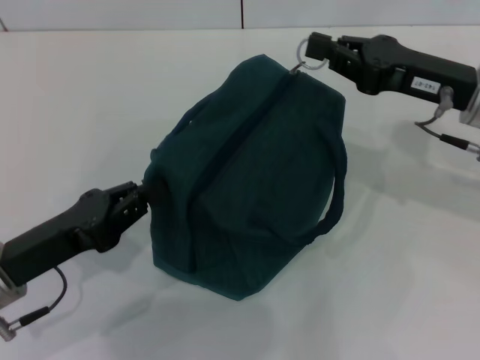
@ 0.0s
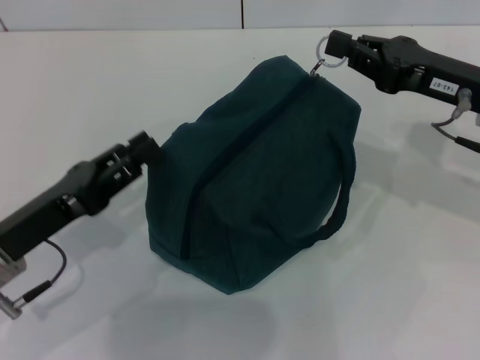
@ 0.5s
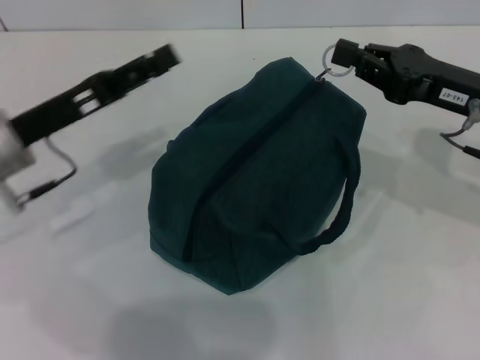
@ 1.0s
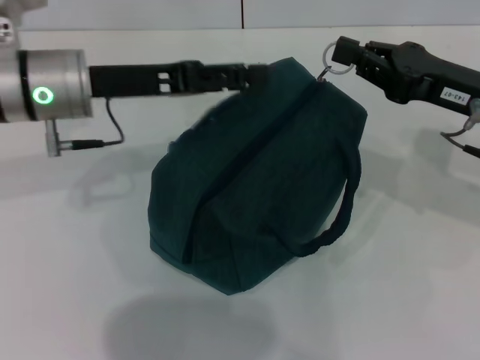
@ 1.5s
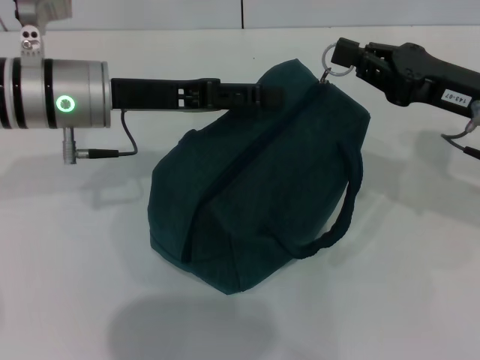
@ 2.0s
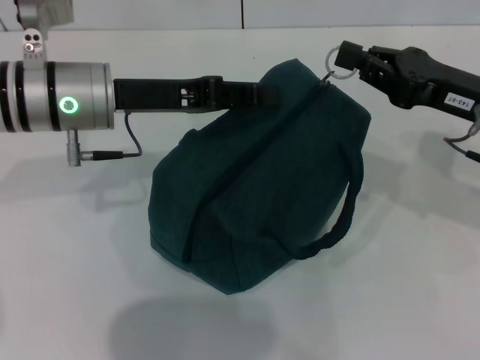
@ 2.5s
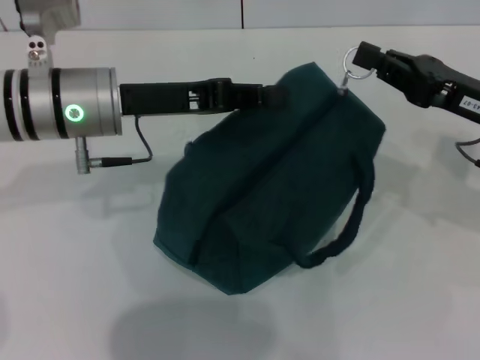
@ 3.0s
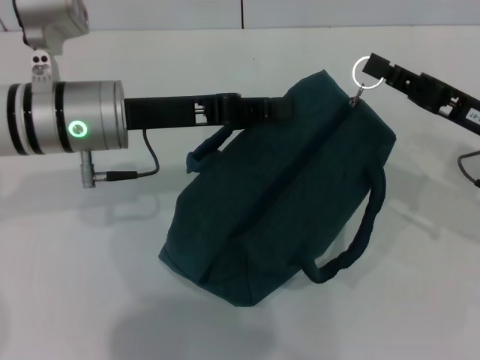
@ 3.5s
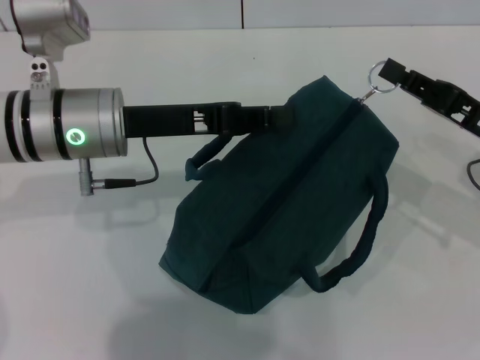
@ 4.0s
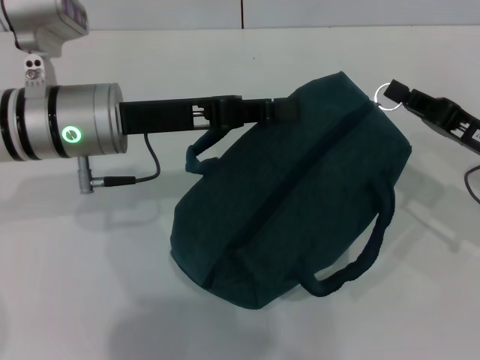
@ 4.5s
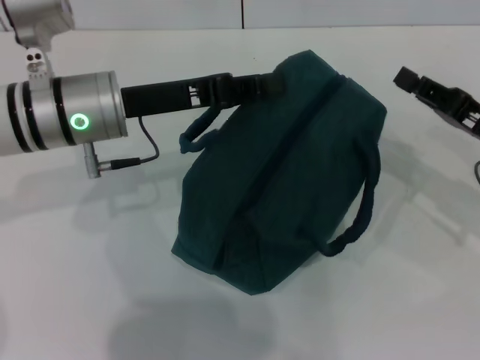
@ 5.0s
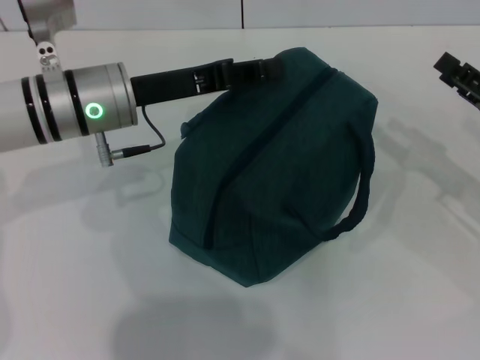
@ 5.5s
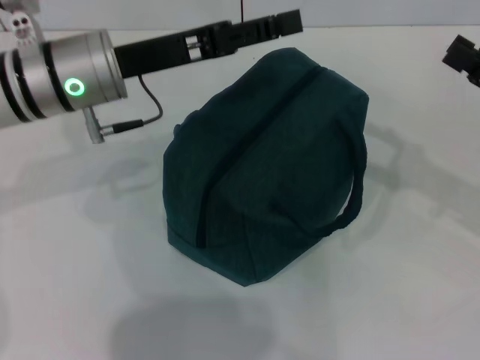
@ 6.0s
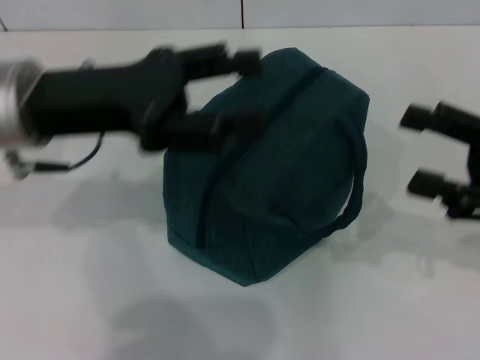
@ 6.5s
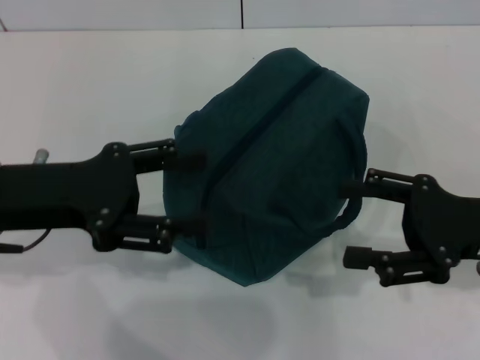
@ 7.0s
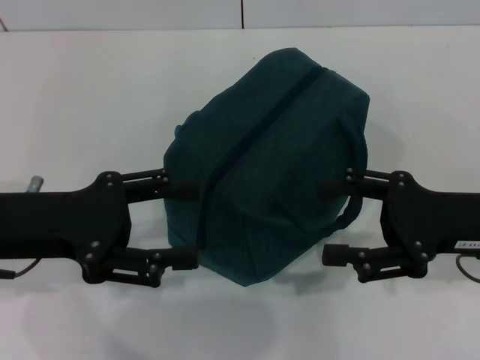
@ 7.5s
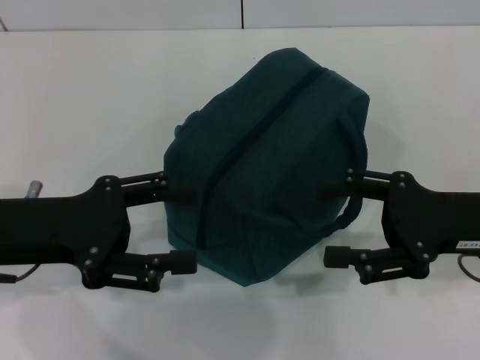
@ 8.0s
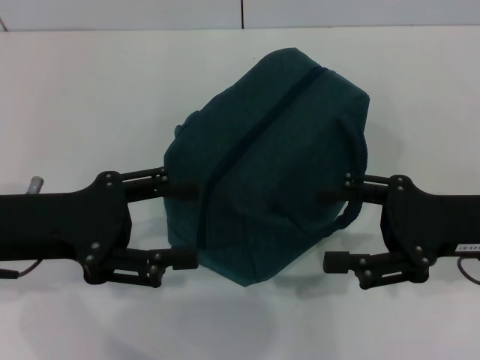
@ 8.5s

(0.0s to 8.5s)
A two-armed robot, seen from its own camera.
Step, 0.0s - 4.5s: Zip up the lunch bag with your right hand.
Step, 5.0s - 5.5s: Hold the lunch bag with your left hand.
0.0s - 2.0s: The left gripper travels forward, upward and to the right by roughly 20 cm, and opens.
2.0s - 4.0s: The left gripper closes up. Meanwhile the right gripper ends up approximately 5 cm from where it was.
4.0s - 6.5s: The right gripper shifts by roughly 5 cm, and opens up. The left gripper heads upward, covering some 5 cm, and opens up.
6.5s - 8.5s: The right gripper shifts about 5 cm to the left; the left gripper is displaced backward and downward by about 10 cm.
